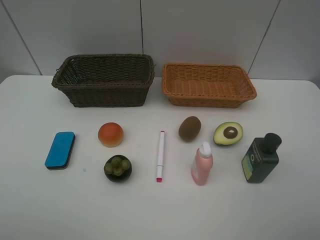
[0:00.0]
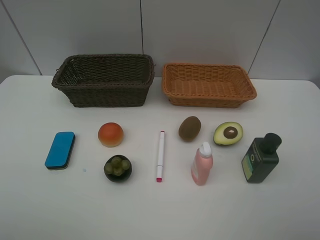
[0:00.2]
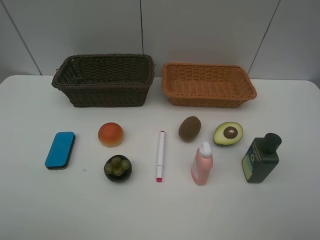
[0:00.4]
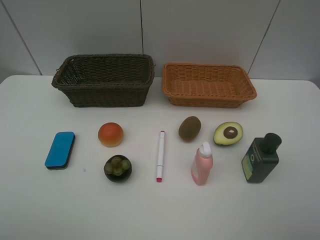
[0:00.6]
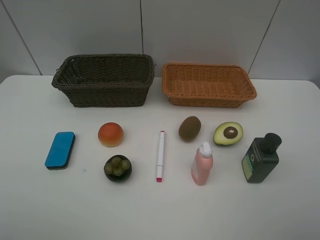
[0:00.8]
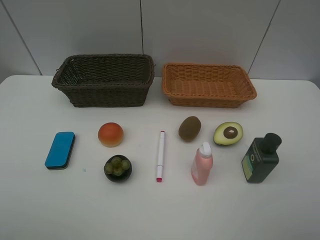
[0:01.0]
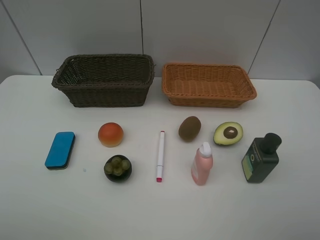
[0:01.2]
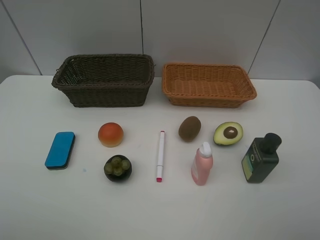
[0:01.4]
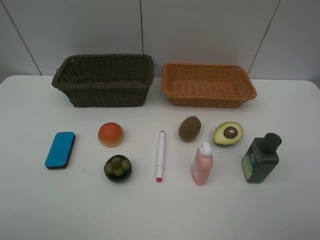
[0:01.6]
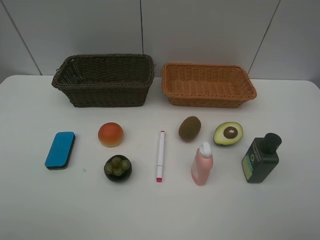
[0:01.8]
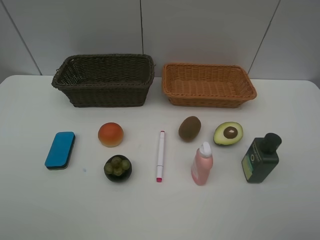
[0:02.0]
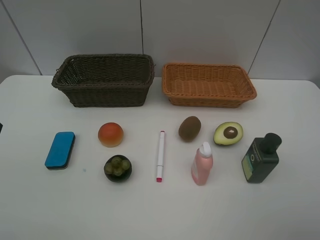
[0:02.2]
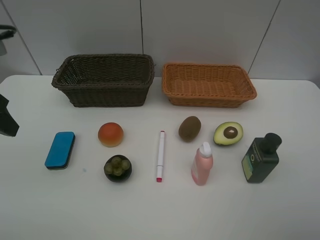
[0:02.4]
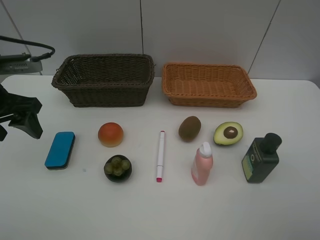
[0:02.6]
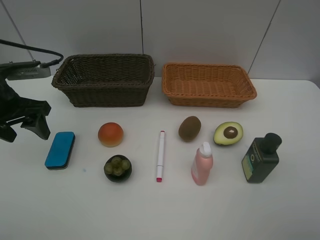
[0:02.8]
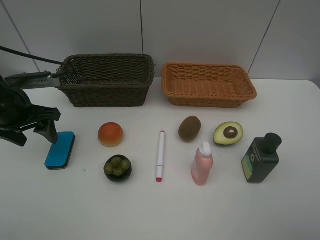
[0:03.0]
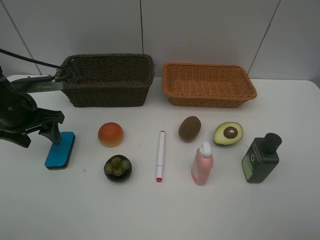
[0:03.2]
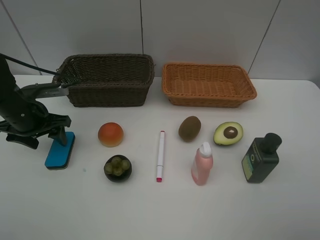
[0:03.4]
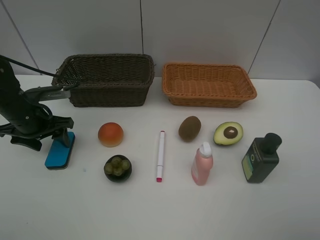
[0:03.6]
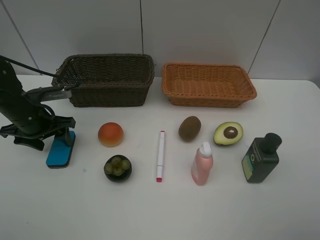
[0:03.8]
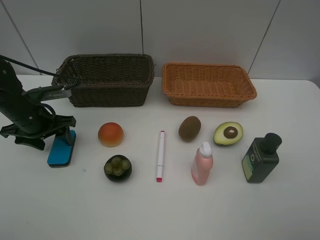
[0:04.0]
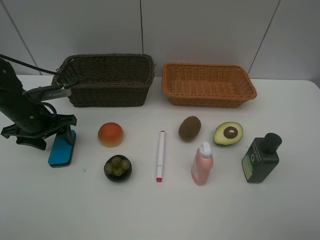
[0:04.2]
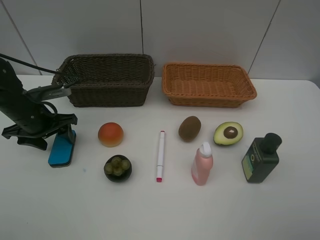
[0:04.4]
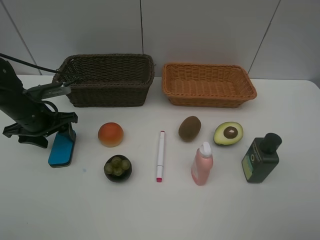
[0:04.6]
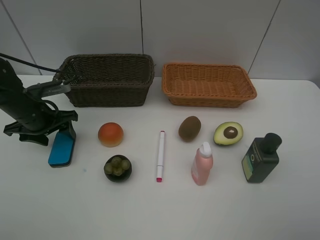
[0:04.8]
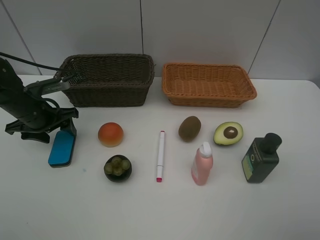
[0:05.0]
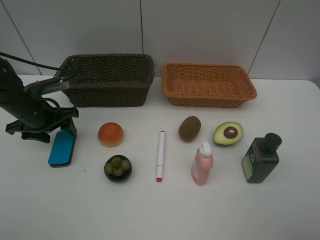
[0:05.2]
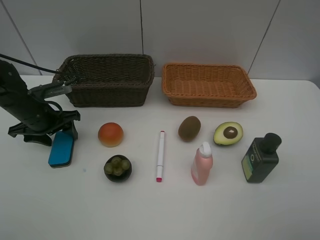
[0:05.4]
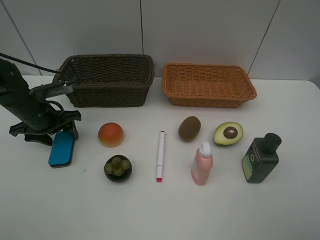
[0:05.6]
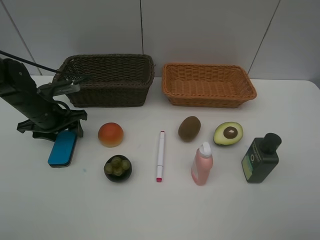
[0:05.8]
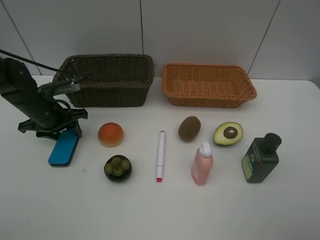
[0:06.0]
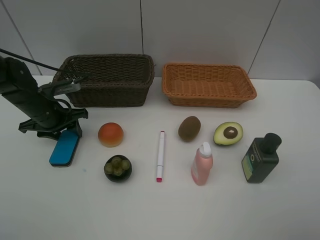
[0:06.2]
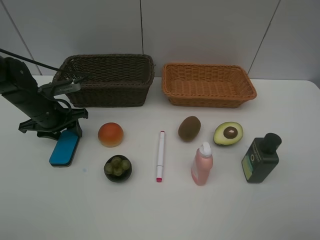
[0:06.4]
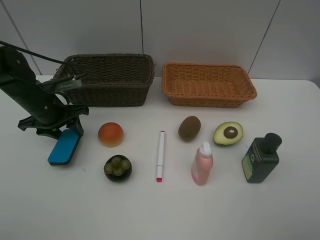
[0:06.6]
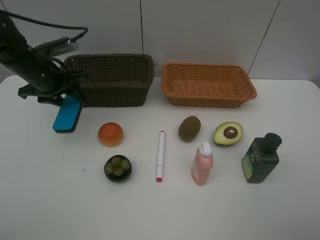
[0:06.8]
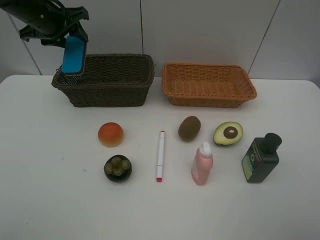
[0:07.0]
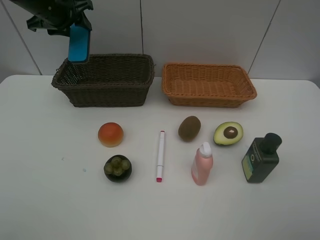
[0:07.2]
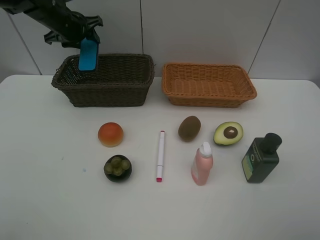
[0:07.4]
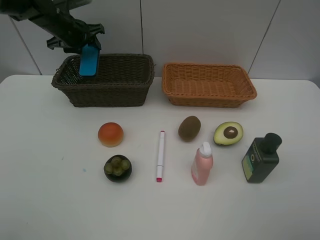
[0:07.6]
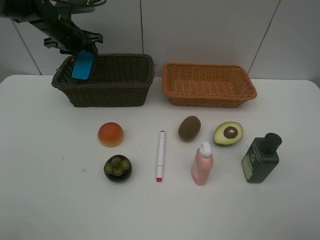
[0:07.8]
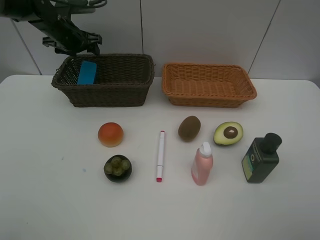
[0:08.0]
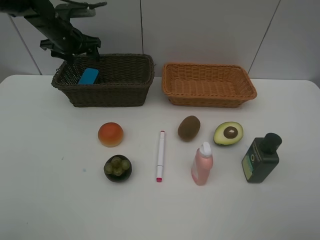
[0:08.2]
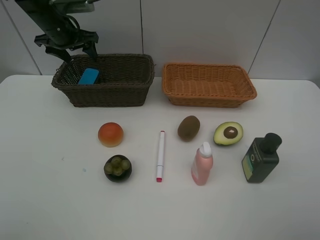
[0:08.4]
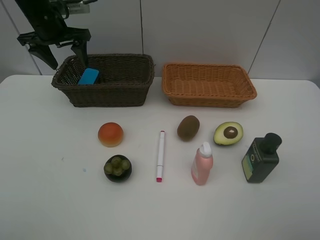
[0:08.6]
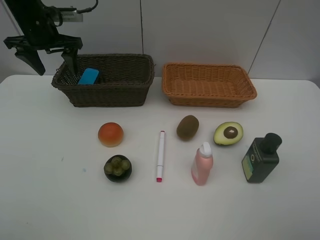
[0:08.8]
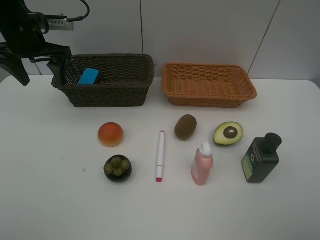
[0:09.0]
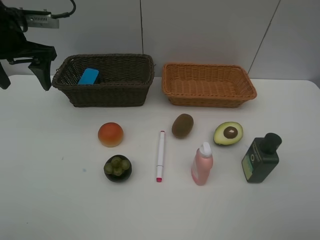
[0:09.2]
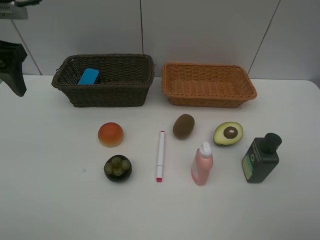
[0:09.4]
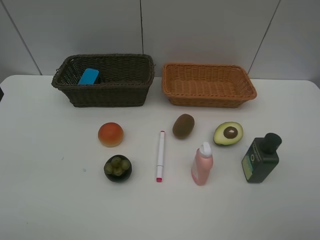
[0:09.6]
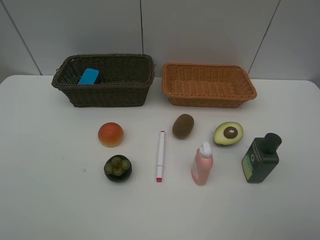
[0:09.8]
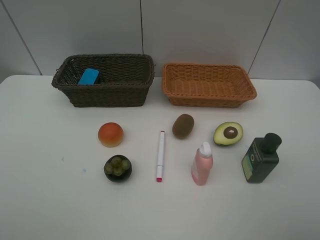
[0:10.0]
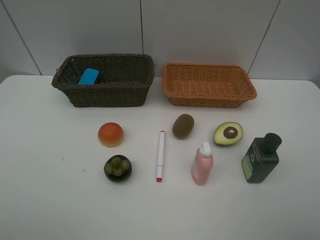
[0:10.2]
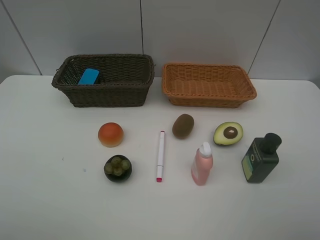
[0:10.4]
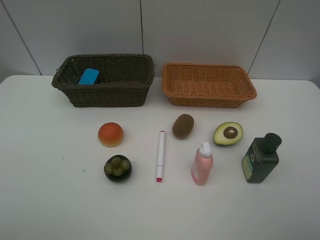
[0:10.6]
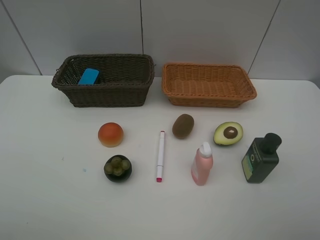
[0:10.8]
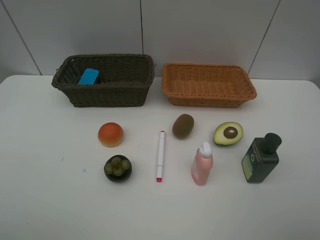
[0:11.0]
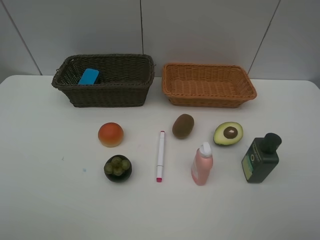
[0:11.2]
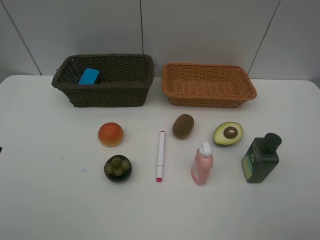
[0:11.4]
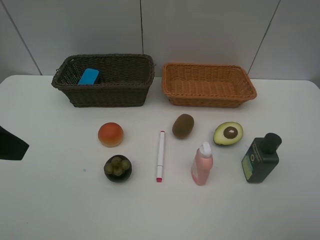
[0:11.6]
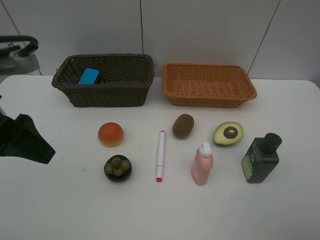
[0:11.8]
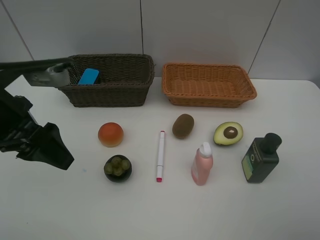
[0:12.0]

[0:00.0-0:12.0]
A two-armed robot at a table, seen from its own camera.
Task of the whole recording: Place multiple objects separately in different baskets.
Step, 0:00.0 to 0:06.6: Pick up blackboard eraser with left gripper.
Step, 0:06.8 to 0:08.0: Place the blackboard eraser in the dark basket with left gripper.
0:00.0 to 0:01.6: Both grippers stay put.
0:01.6 to 0:03.0: The left gripper travels forward and downward by about 30 cm.
0:03.0 to 0:04.4: The left gripper travels downward by approximately 5 cm.
0:04.4 to 0:06.0: The grippers make only small movements.
0:06.0 to 0:07.6: The left gripper is displaced forward and upward by about 20 cm.
0:07.6 to 0:09.0: The left gripper heads backward and upward, covering some 15 cm, and opens its fingers.
0:09.0 to 0:10.4: The left gripper moves backward, about 35 cm.
0:10.4 to 0:12.0: The left gripper travels forward, to the right and downward by approximately 20 cm.

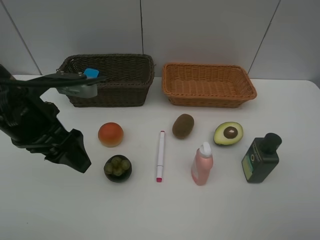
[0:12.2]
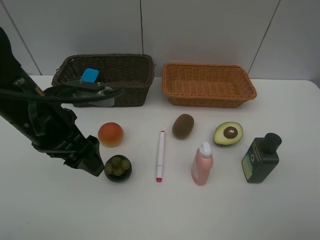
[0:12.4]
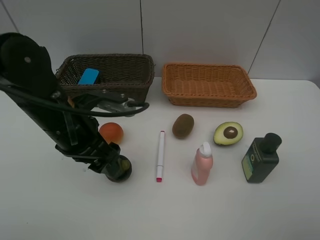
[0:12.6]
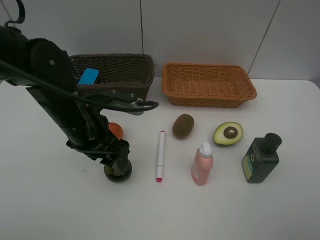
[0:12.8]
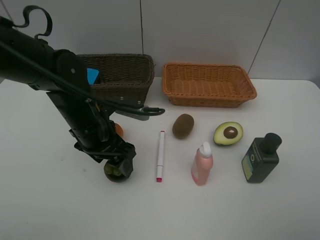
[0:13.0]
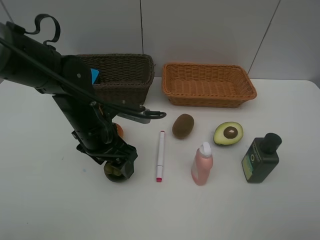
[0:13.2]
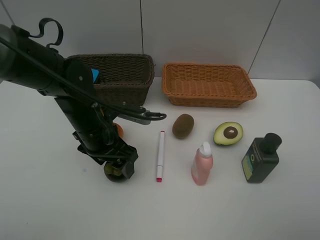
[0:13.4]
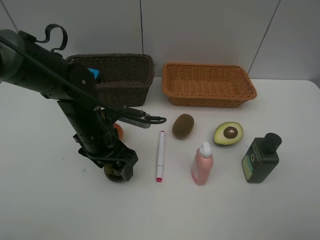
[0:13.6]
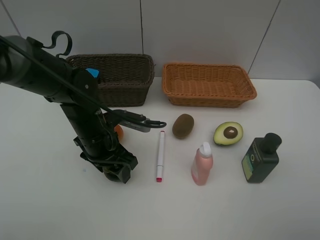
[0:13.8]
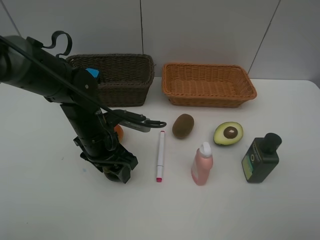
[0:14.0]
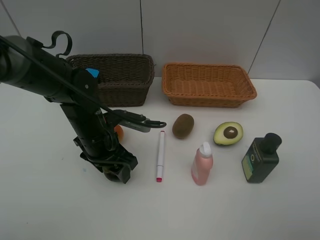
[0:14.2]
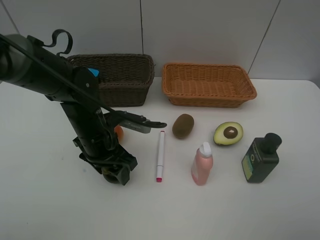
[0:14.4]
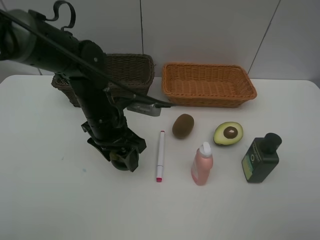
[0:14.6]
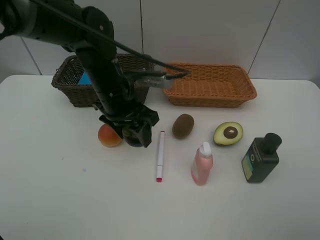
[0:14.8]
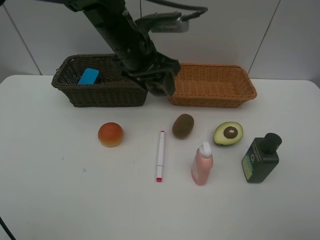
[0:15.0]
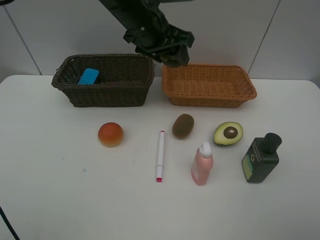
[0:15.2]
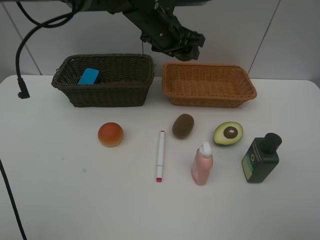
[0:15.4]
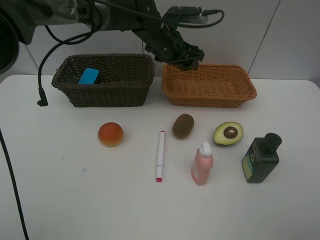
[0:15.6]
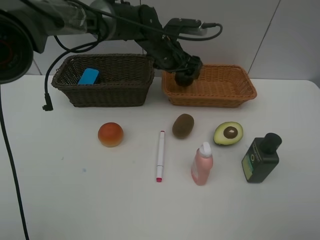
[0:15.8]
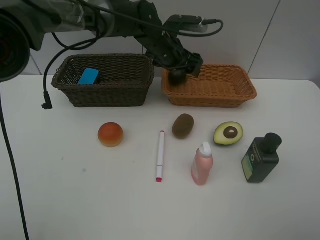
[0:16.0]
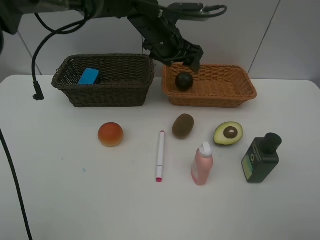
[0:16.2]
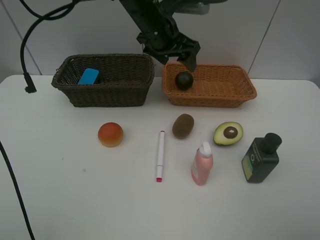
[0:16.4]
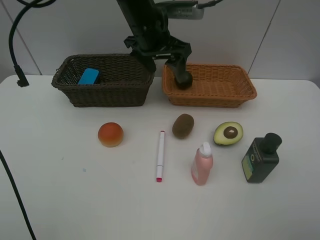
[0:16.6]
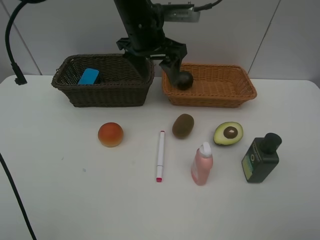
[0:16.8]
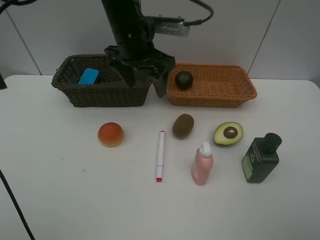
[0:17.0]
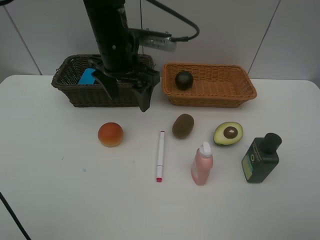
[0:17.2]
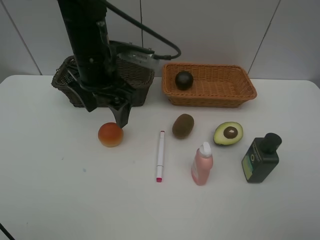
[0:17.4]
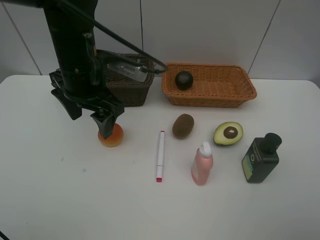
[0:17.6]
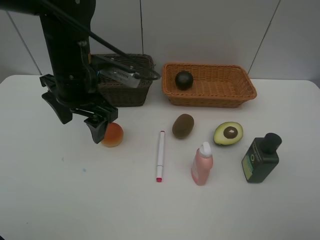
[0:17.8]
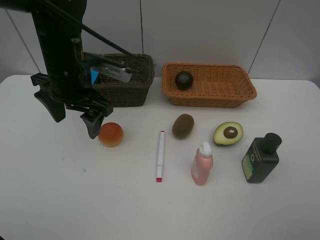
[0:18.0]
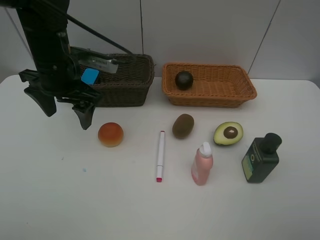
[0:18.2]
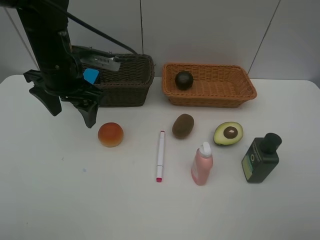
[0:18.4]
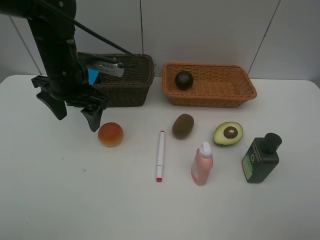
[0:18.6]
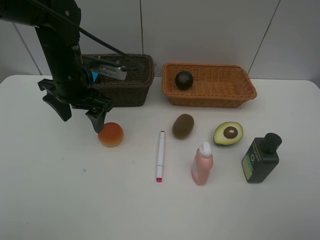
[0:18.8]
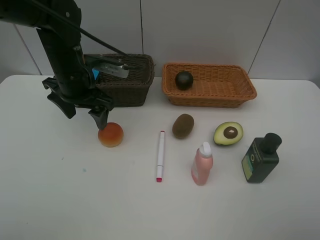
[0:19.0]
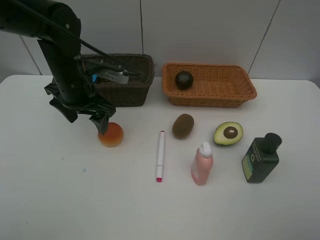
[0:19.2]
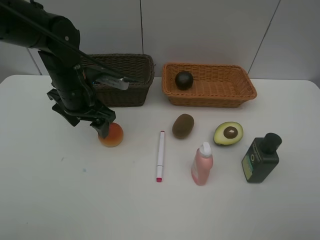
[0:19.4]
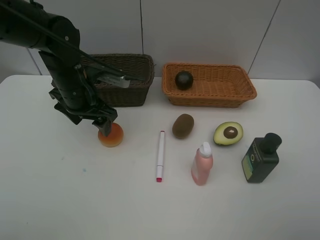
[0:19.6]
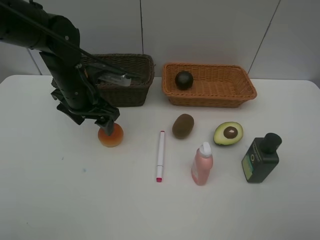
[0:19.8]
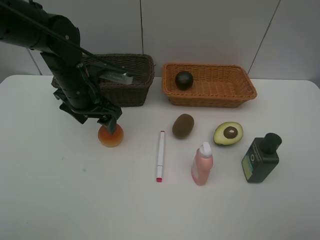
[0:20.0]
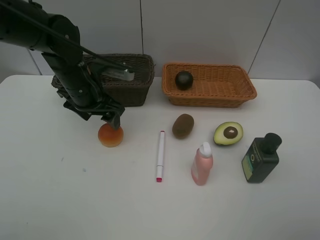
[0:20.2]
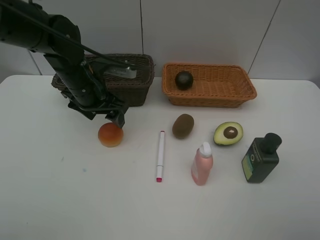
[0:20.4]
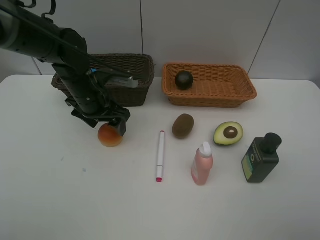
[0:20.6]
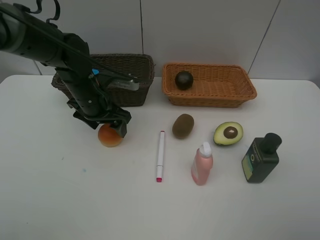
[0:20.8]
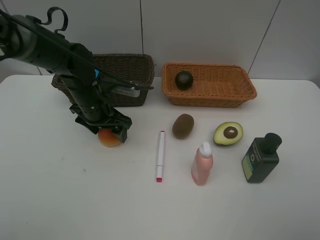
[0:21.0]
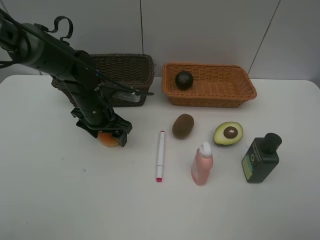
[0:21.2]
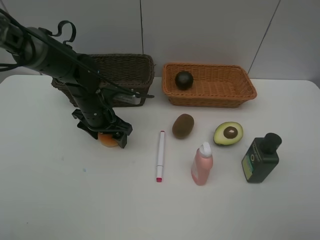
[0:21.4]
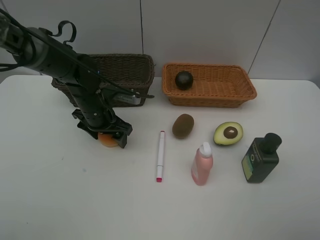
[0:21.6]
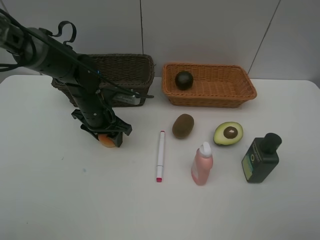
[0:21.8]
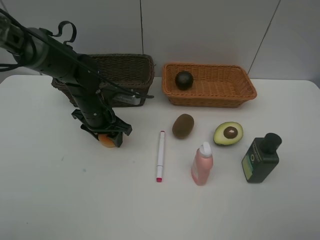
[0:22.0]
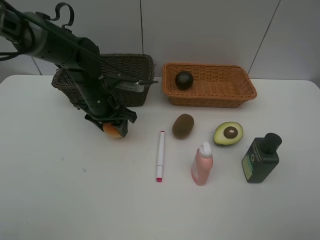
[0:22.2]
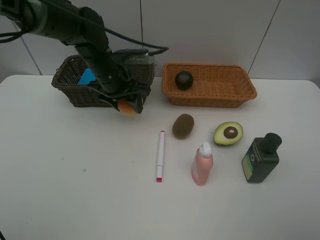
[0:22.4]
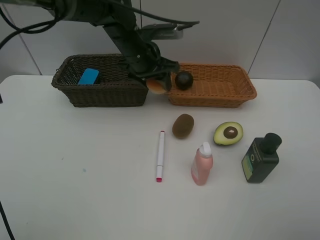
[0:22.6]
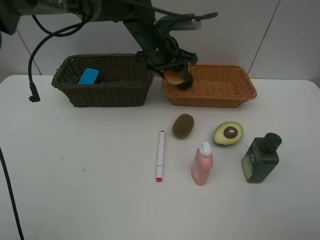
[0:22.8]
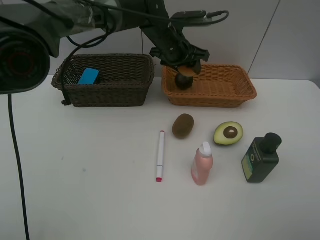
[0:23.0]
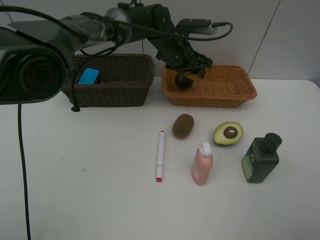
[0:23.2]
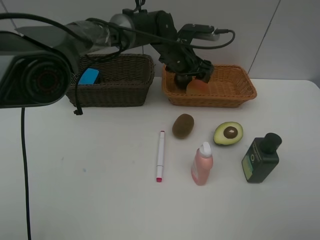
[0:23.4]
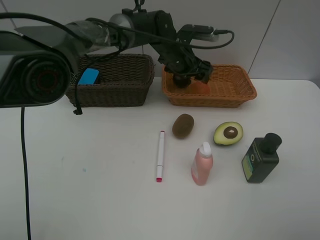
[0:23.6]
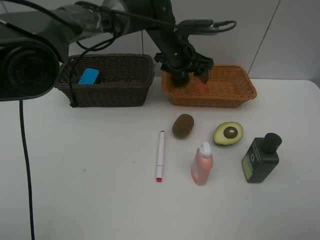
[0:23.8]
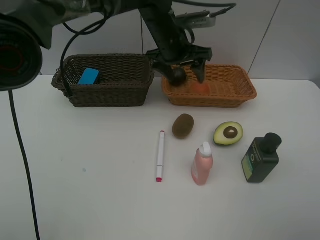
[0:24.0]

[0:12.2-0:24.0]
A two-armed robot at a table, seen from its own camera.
Task of the whole recording: Place multiple objects separately in different baskets.
Step, 0:12.2 to 0:14.6: Pick up the mangosteen with left gripper.
Step, 0:14.8 to 0:15.8: Place the mangosteen in the light basket with left gripper.
Step, 0:16.0 to 0:22.2: Pick up egg yolk pastry with left gripper.
Step, 0:22.4 to 0:23.4: Place the egg yolk pastry in the light basket with left gripper.
0:12.2 to 0:13.6: The left gripper travels downward and to the right by some 10 cm.
0:13.6 to 0:15.2: The left gripper moves upward, forward and to the right, approximately 20 cm.
0:15.2 to 0:16.6: The left gripper moves about 10 cm downward and comes back.
0:16.6 to 0:18.2: The left gripper travels to the left and backward by approximately 15 cm.
0:18.2 to 0:19.6: The left gripper is displaced downward by approximately 5 cm.
0:19.6 to 0:21.0: The left gripper goes roughly 5 cm downward.
0:21.0 to 0:22.6: The left gripper shifts approximately 15 cm to the right, upward and forward, and closes up.
0:22.6 to 0:24.0: The left gripper moves to the right, approximately 5 cm.
